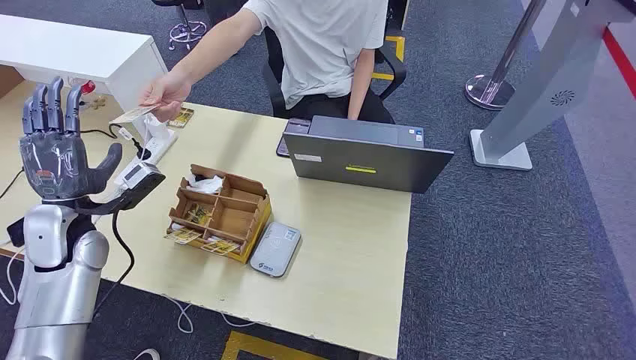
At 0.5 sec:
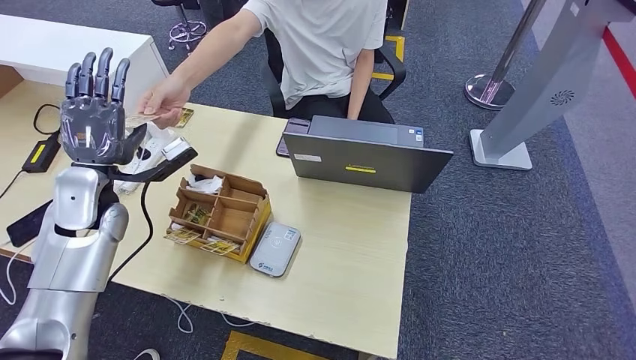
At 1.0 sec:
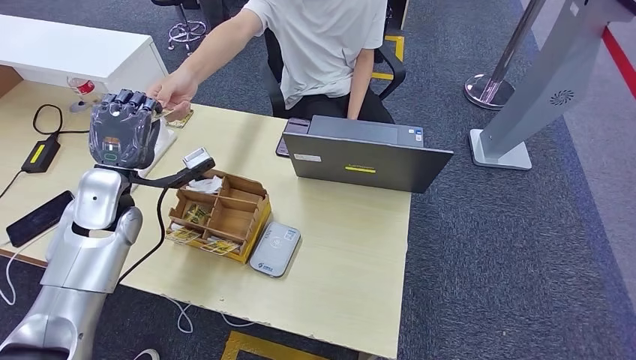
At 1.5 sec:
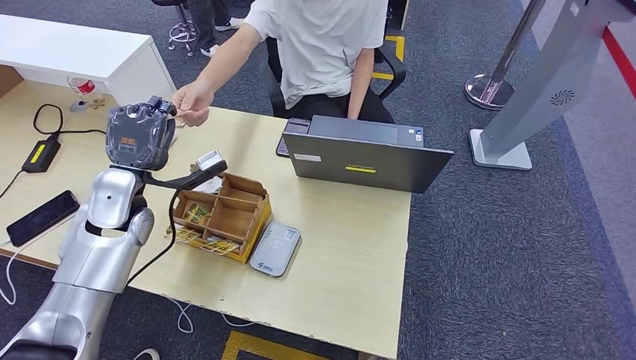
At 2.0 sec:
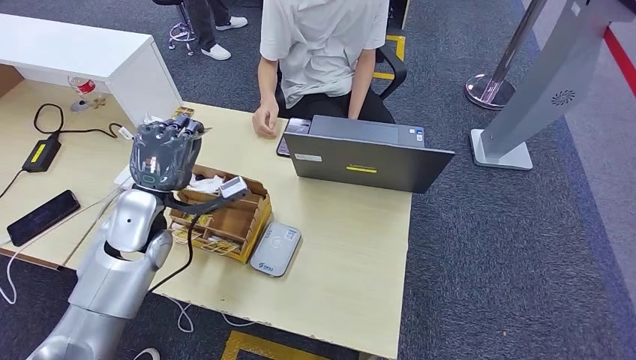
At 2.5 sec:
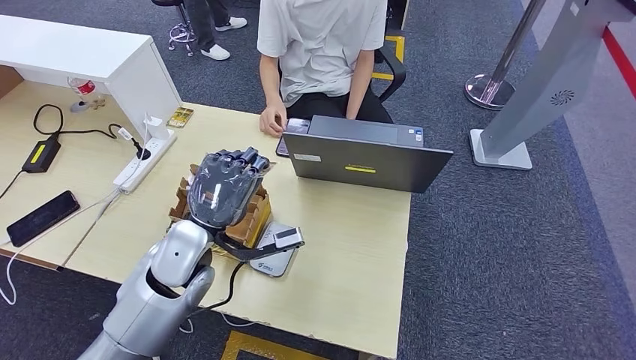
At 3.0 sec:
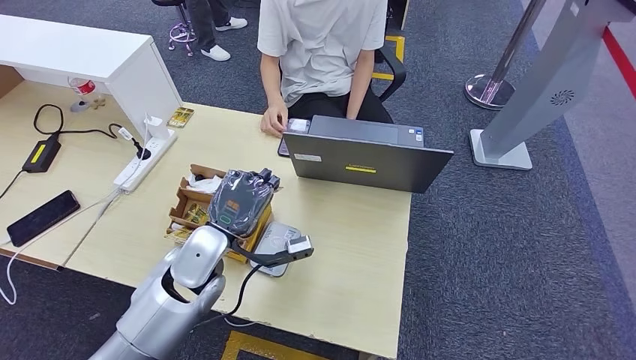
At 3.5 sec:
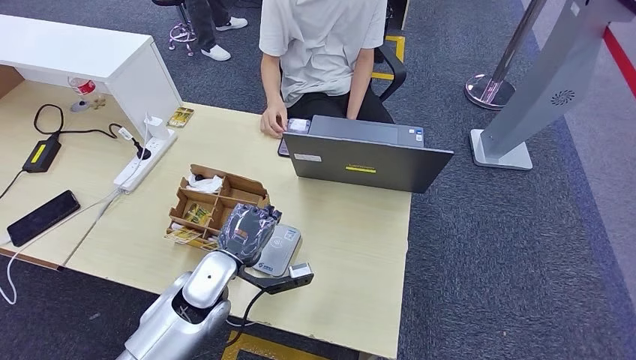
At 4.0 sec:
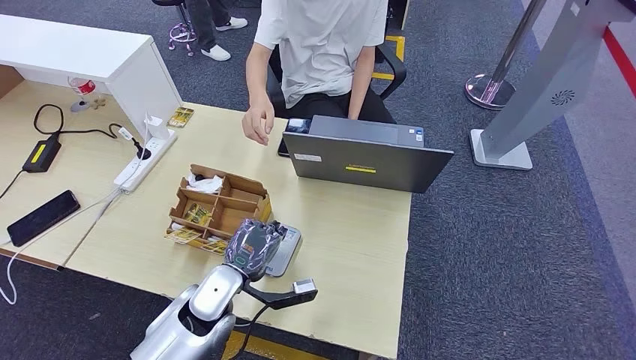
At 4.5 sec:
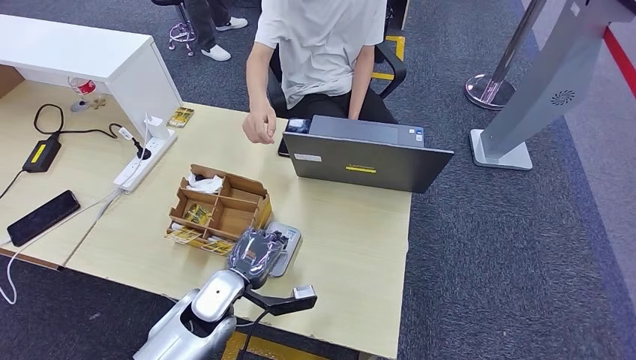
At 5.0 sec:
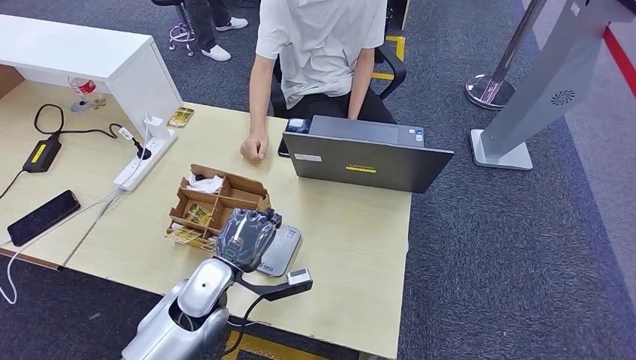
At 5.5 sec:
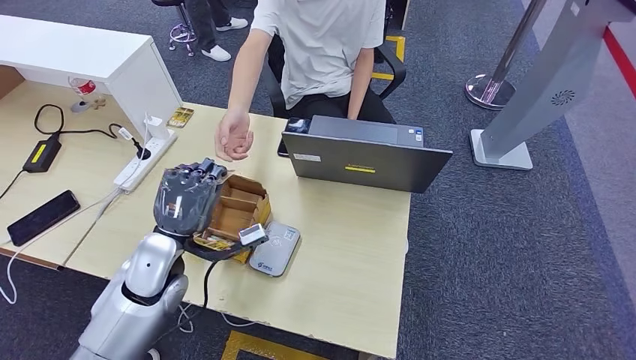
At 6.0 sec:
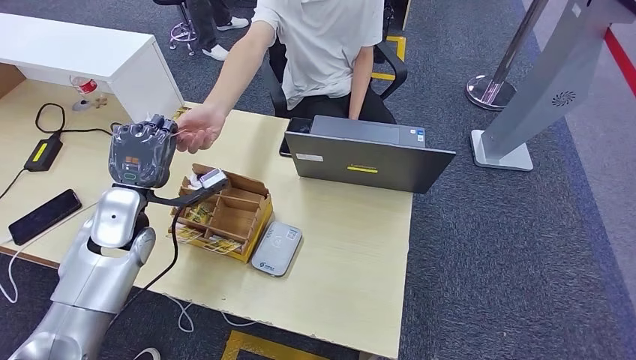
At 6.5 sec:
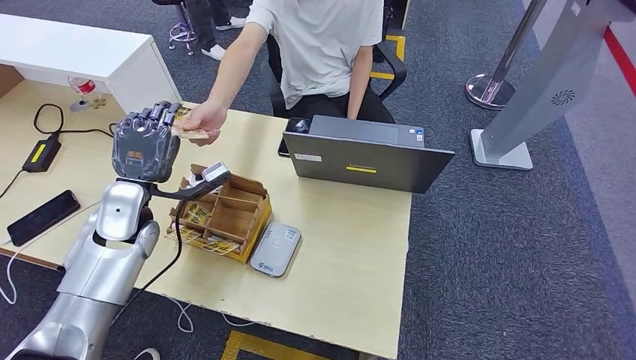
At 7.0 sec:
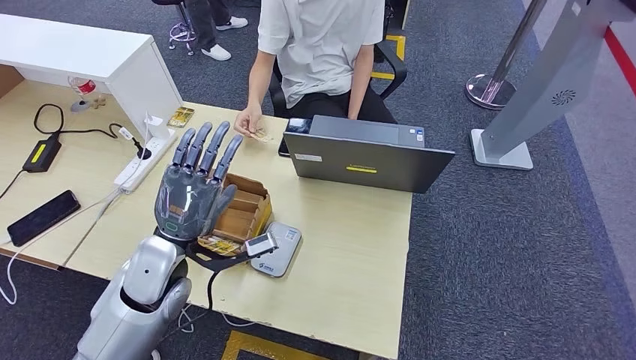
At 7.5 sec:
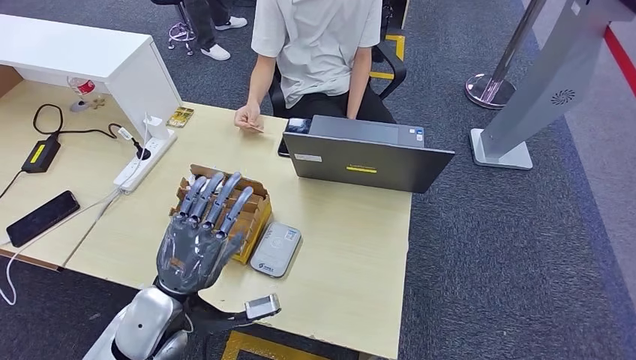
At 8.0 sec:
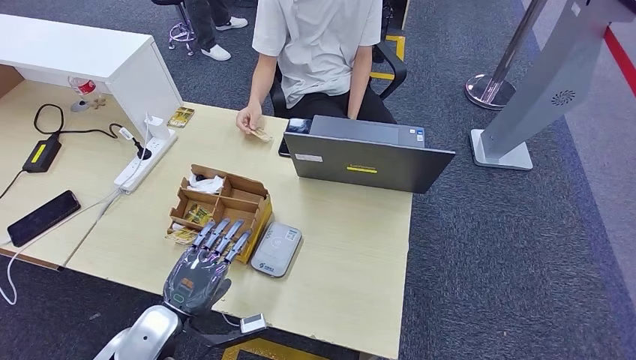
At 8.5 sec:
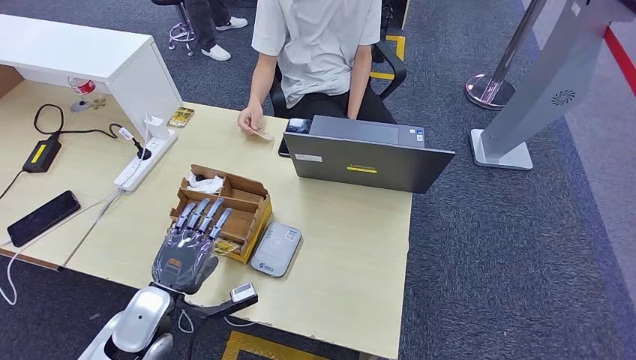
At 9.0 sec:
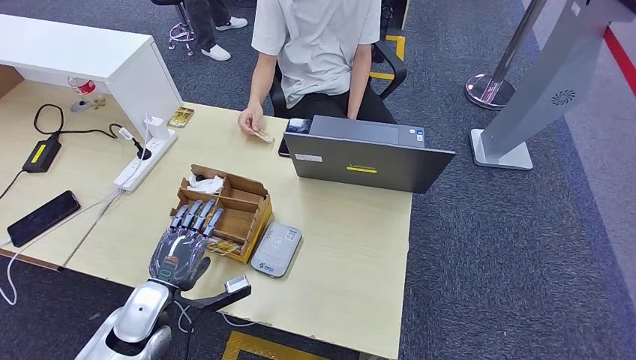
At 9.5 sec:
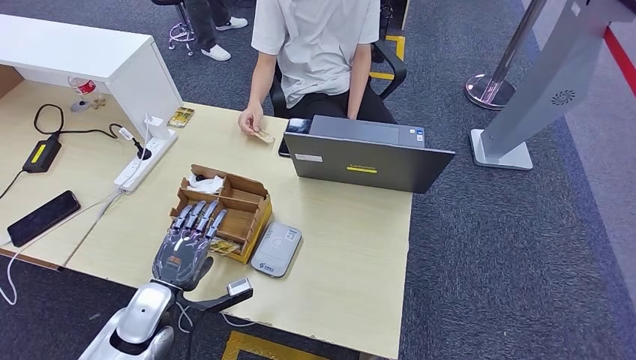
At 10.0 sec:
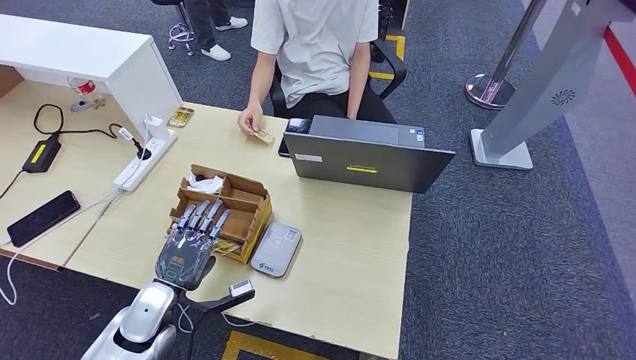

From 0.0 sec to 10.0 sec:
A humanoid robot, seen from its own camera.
Step, from 0.0 sec to 2.0 sec: Take the ID card from the person's hand.
Step, from 2.5 sec to 4.0 sec: Place the ID card on the card reader.
Step, from 4.5 sec to 7.0 sec: Hand the ID card to the person.
From 2.0 sec to 4.0 sec: The left hand heads downward, to the right and backward, covering some 20 cm.
From 4.0 sec to 6.0 sec: The left hand shifts about 20 cm to the left, upward and forward.
From 6.0 sec to 8.0 sec: The left hand goes about 20 cm backward, downward and to the right.
From 8.0 sec to 10.0 sec: The left hand changes place by roughly 5 cm.

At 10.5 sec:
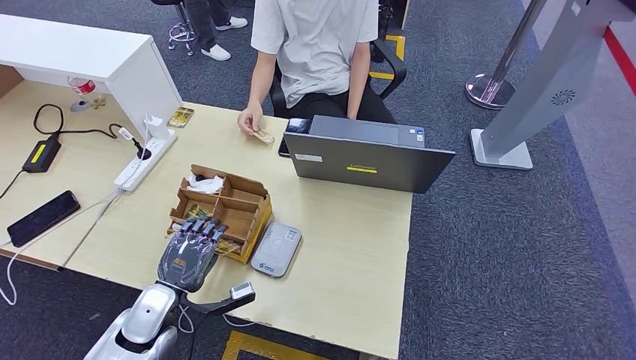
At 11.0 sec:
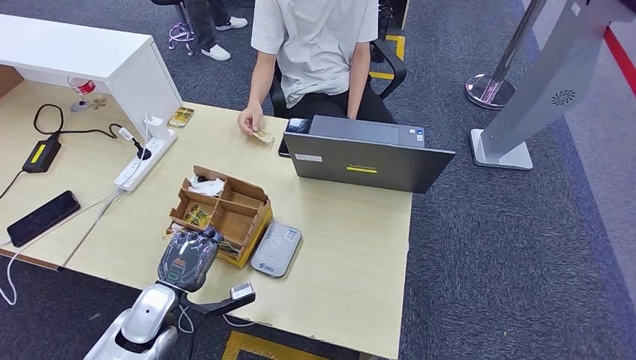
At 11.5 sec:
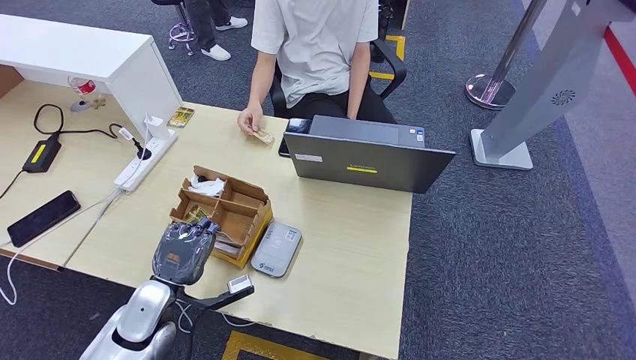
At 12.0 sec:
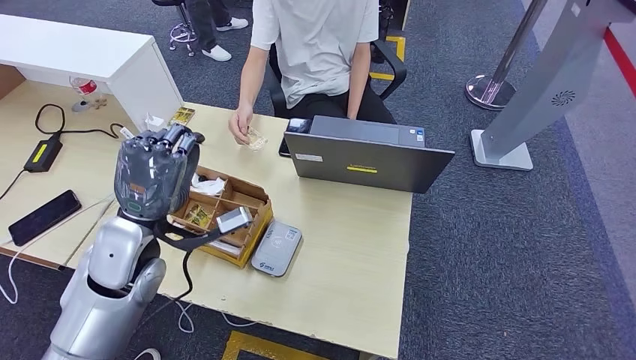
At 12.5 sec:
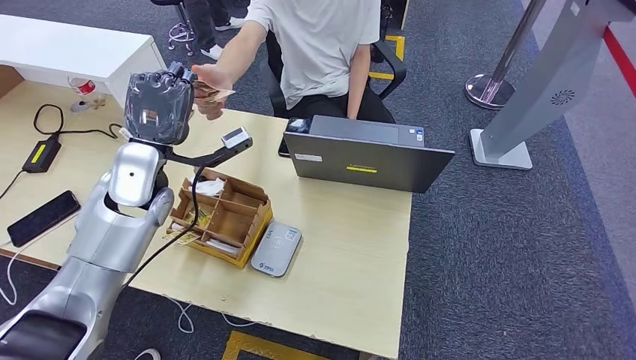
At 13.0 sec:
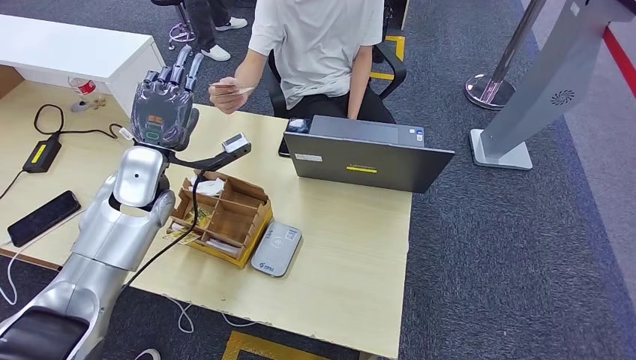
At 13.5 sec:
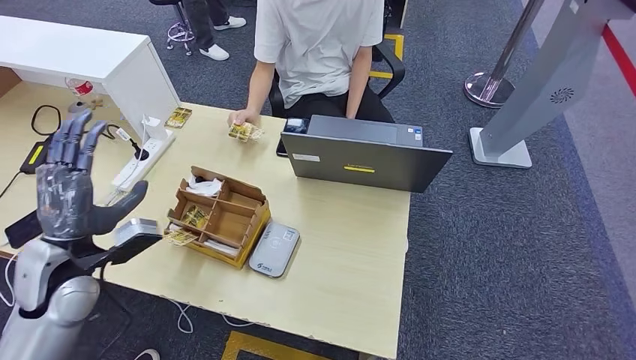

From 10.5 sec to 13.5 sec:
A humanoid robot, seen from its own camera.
Step, from 10.5 sec to 11.5 sec: Pick up the room key from the key card box.
Step, from 12.0 sec to 13.5 sec: Hand the room key to the person.
From 10.5 sec to 12.0 sec: The left hand moves upward, approximately 15 cm.
